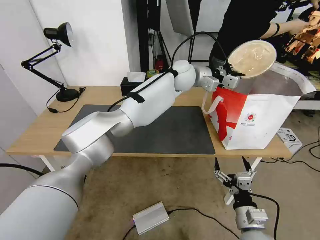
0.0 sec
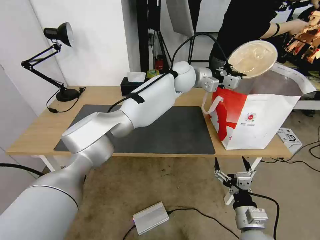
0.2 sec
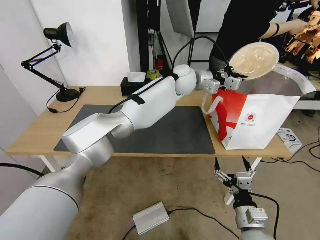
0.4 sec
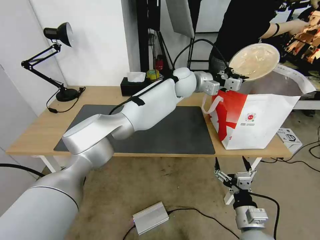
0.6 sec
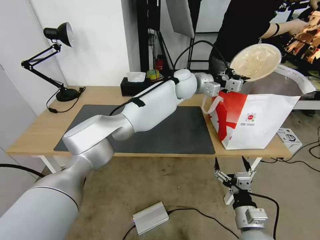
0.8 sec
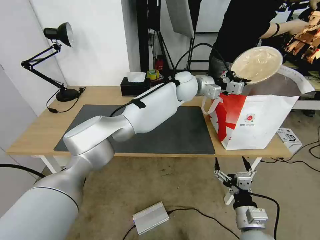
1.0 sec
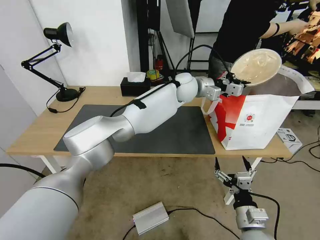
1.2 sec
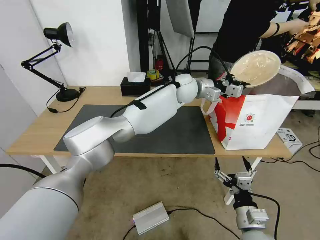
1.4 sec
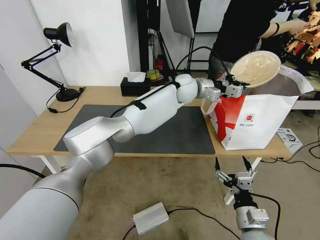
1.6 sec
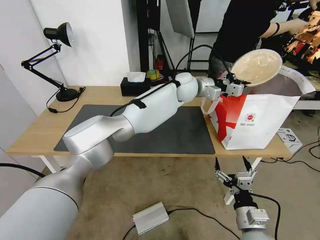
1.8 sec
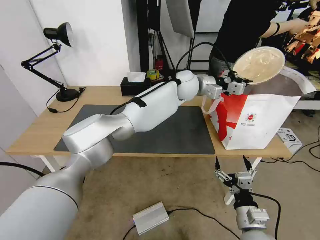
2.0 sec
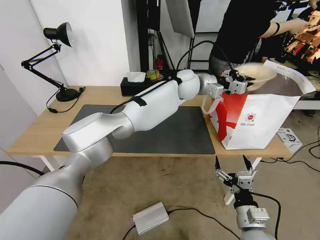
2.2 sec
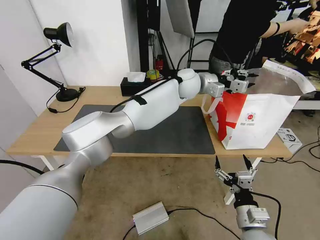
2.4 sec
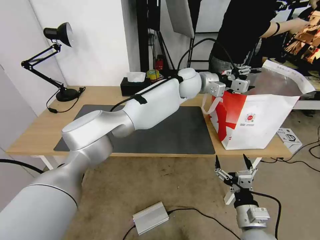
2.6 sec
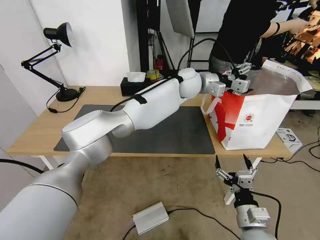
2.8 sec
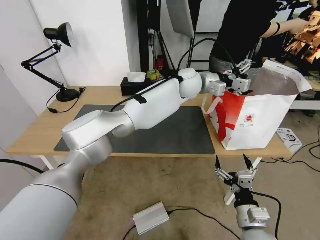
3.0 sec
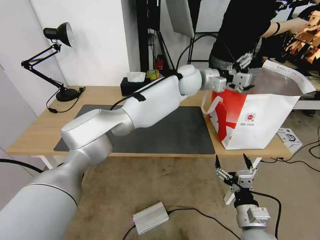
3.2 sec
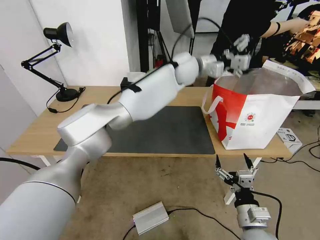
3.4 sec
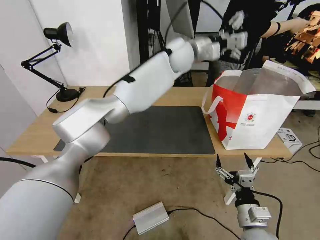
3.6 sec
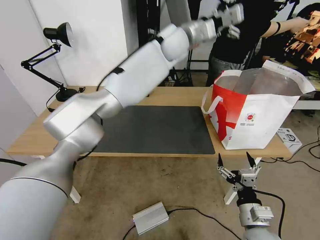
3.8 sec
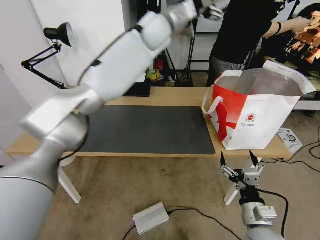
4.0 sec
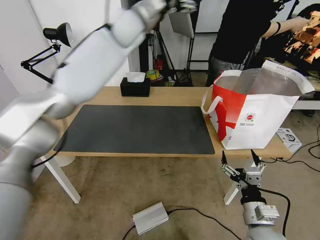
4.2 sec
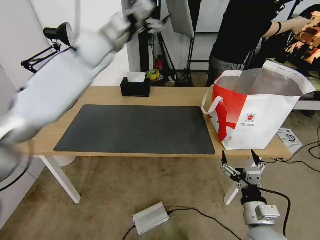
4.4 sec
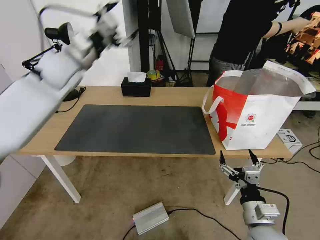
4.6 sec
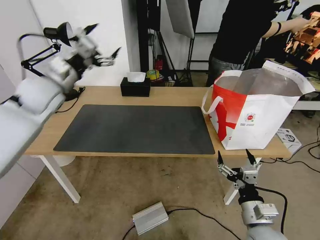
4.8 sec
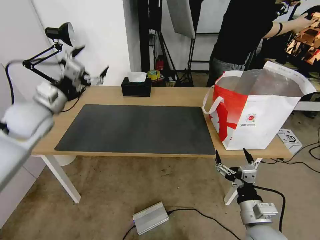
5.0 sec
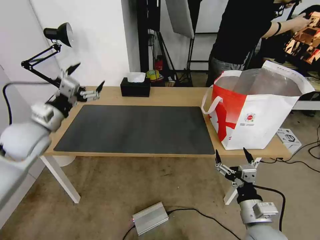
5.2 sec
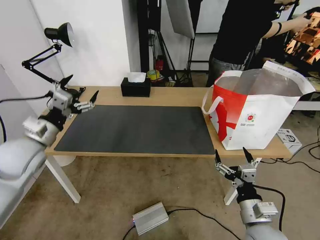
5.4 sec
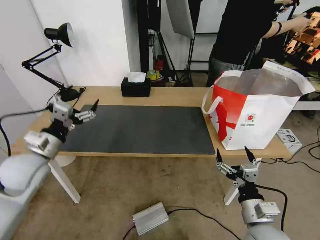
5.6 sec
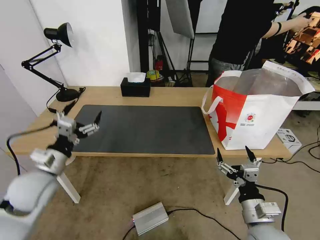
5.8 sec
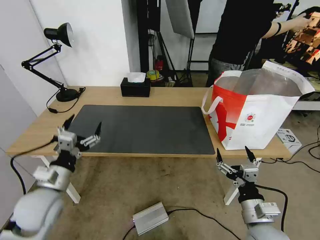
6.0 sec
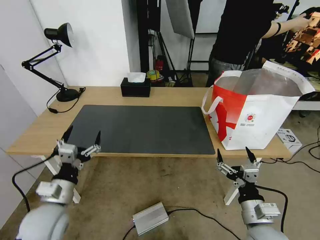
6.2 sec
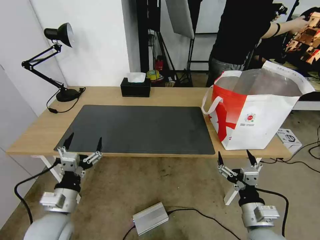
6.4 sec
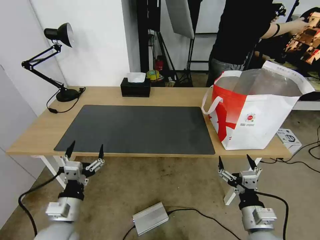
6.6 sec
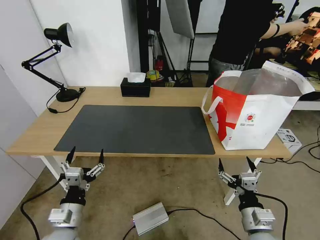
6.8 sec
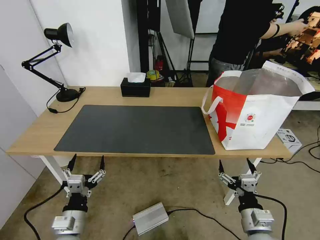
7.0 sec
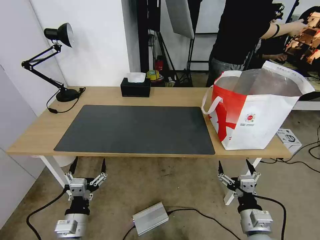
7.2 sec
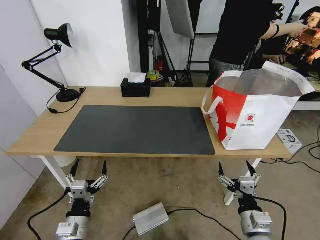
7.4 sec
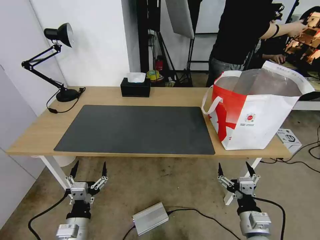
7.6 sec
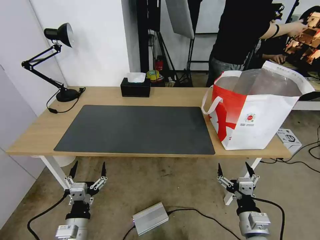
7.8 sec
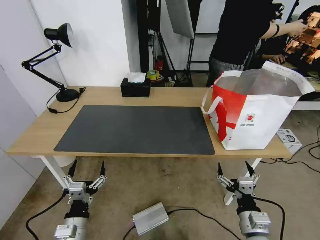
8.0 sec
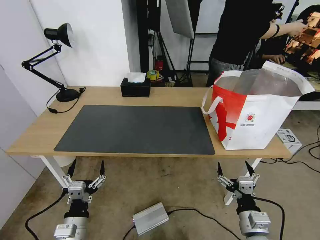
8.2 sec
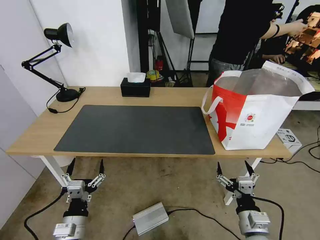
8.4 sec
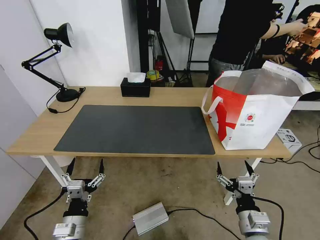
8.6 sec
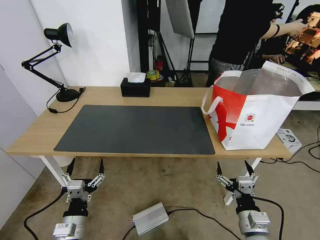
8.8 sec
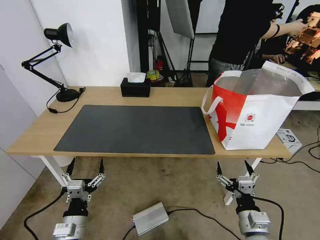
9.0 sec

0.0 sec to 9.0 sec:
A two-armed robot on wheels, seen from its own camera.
Task of the whole recording: Pick up the trash from the table and place it into the takeout bag.
0.0 sec to 1.6 sec: The left gripper changes place by about 5 cm.
1.6 sec to 3.0 sec: The left gripper opens.
3.0 sec to 4.4 sec: The left gripper heads to the left and upward, covering some 30 cm.
4.4 sec to 6.0 sec: The left gripper shifts roughly 40 cm backward and downward.
6.0 sec to 7.6 sec: The left gripper travels downward, backward and to the right by some 15 cm.
7.6 sec to 9.0 sec: Neither gripper changes place.

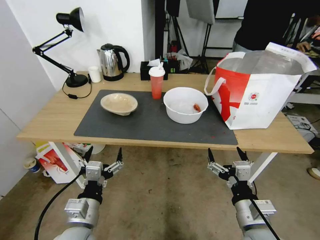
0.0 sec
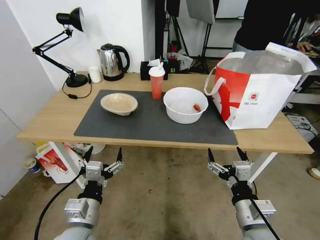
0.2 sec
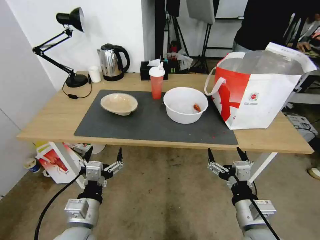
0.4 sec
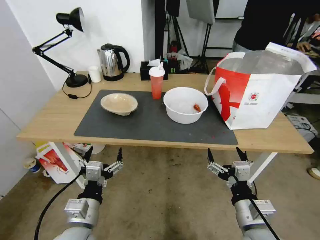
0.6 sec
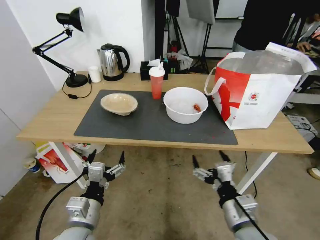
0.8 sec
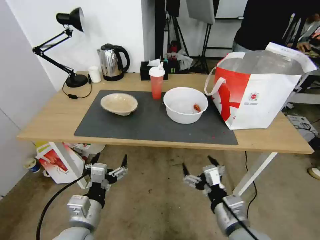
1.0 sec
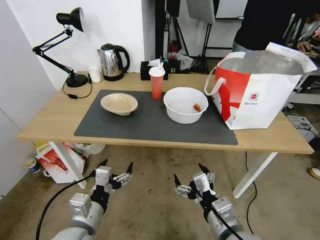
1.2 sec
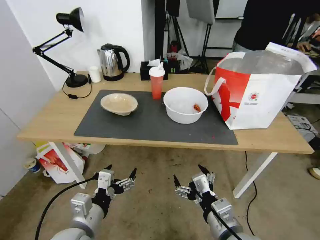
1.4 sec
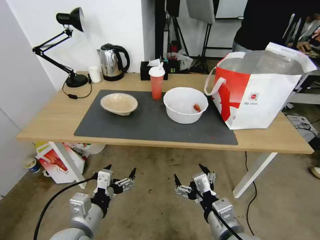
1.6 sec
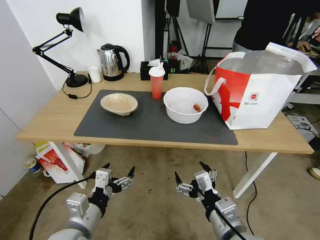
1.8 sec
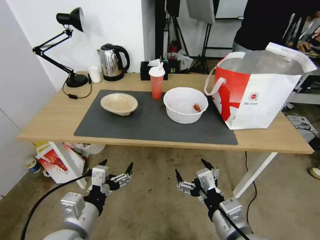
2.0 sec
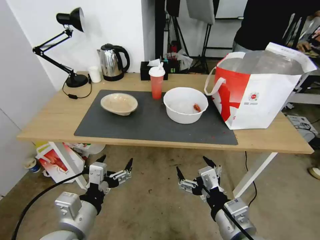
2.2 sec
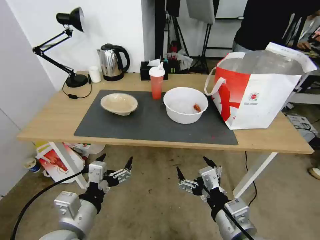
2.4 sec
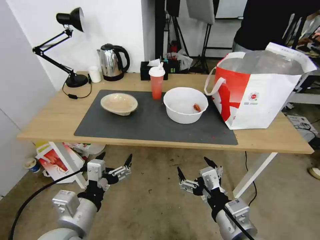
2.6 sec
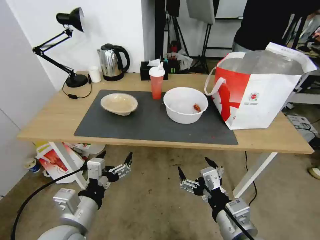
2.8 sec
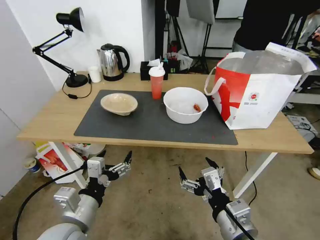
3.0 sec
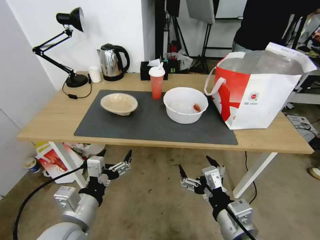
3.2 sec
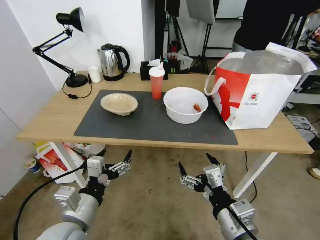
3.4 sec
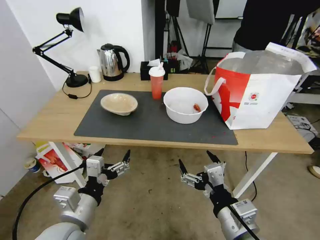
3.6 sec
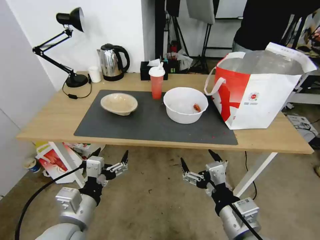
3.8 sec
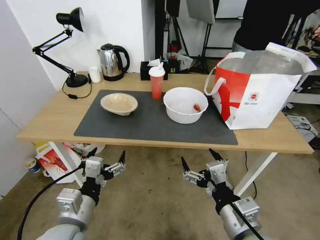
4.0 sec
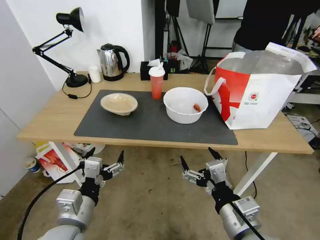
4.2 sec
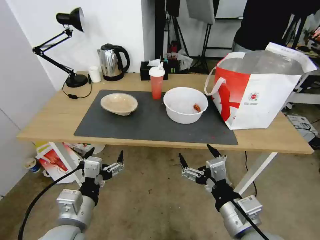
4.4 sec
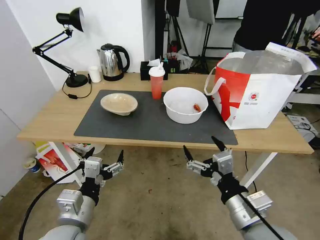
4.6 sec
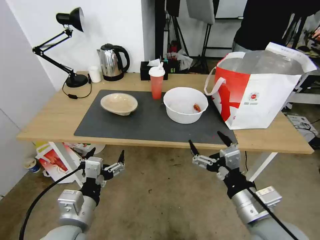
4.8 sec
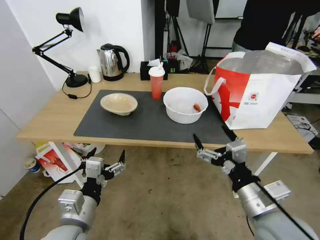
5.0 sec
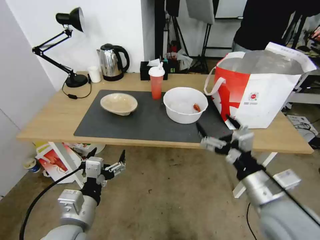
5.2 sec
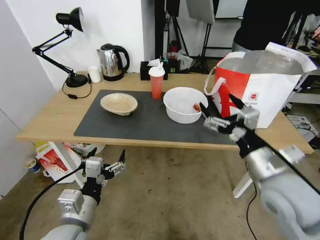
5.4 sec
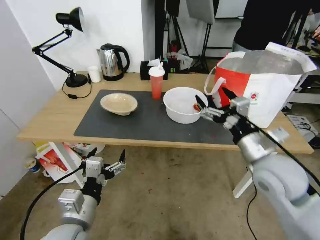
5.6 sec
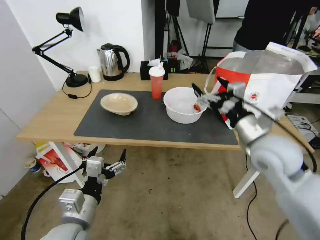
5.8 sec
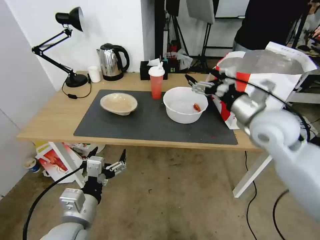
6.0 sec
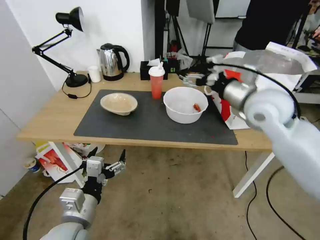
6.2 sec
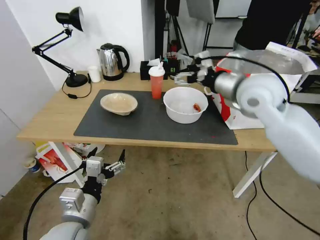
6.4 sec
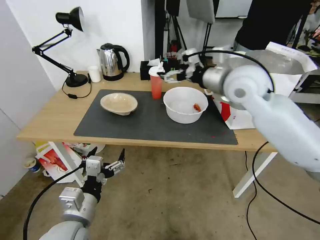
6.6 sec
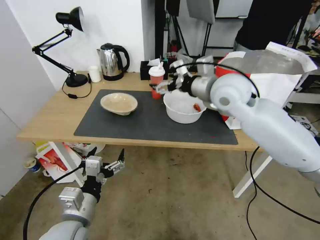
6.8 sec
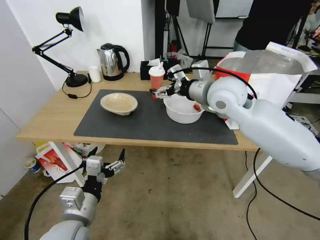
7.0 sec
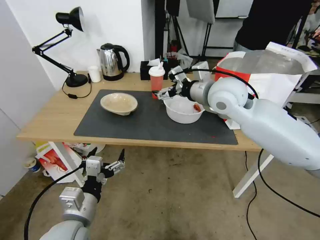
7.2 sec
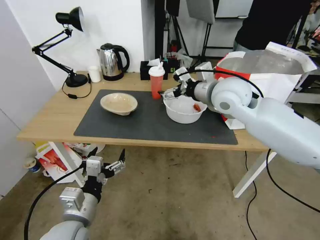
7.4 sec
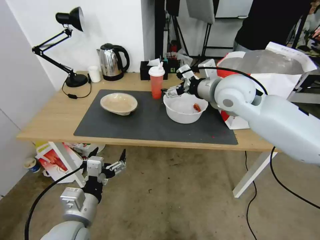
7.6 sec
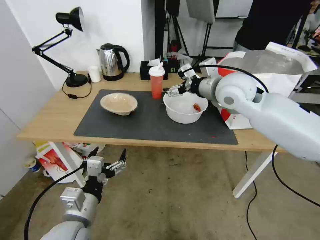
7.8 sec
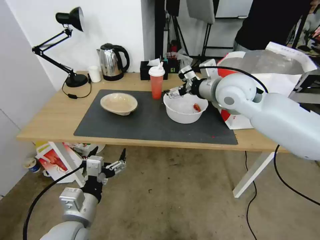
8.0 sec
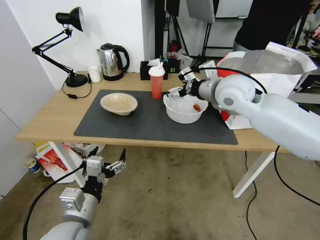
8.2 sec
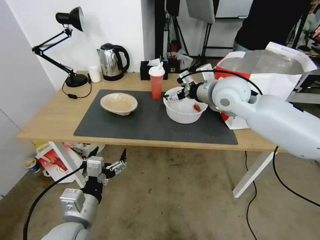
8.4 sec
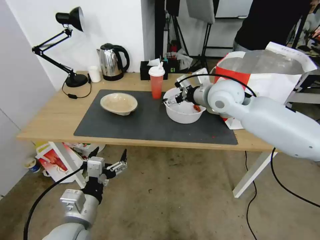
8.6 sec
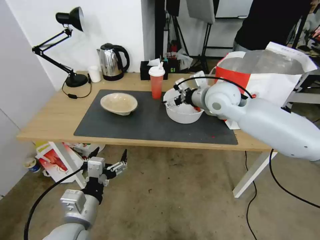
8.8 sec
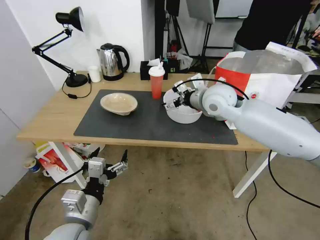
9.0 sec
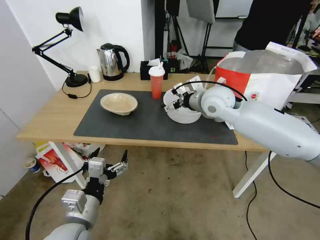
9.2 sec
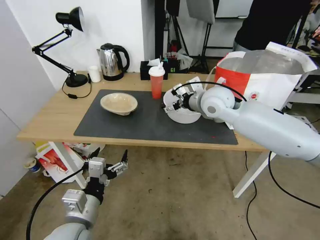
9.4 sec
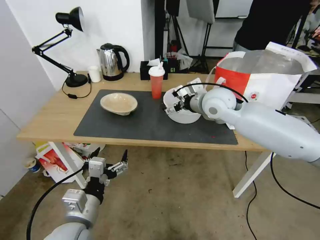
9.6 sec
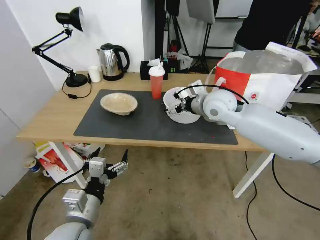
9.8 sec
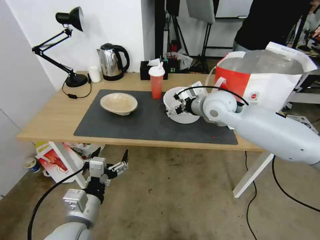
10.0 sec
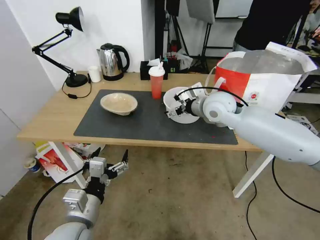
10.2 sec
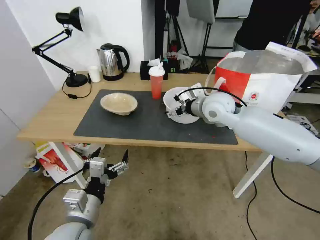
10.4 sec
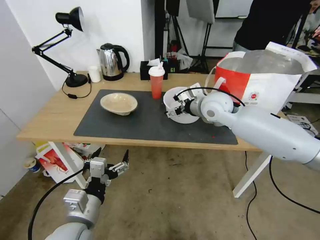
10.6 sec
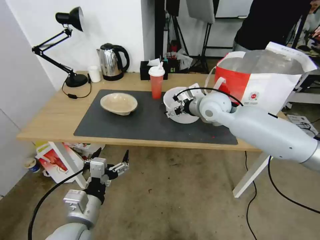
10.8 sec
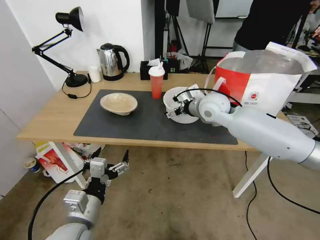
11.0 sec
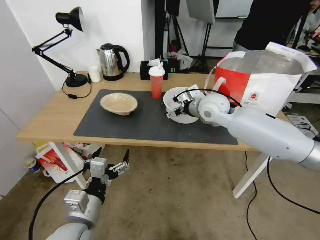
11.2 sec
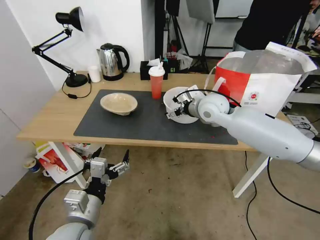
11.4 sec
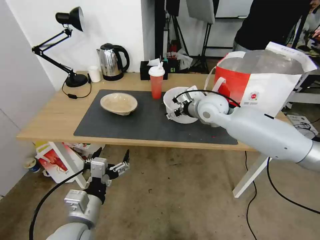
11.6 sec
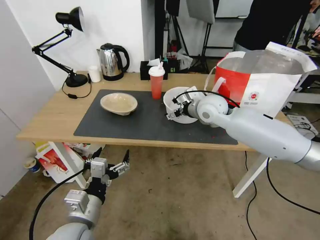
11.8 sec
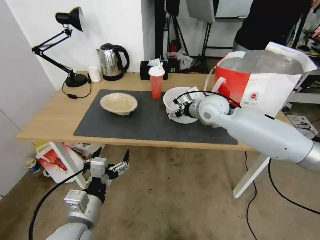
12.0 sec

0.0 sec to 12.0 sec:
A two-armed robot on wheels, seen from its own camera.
Task of the whole recording: Pick up the trash from the table and place it into the takeout bag.
1.6 sec to 4.4 sec: The grippers make only small movements.
4.4 sec to 6.0 sec: The right gripper shifts approximately 25 cm forward and upward.
6.0 sec to 7.6 sec: The right gripper goes roughly 10 cm forward and to the left.
7.6 sec to 9.0 sec: The right gripper changes place by about 5 cm.
9.0 sec to 12.0 sec: The grippers stay close to where they were, moving slightly.

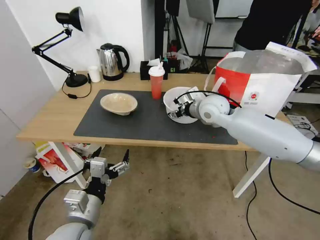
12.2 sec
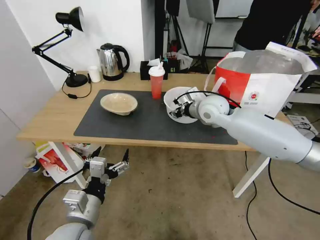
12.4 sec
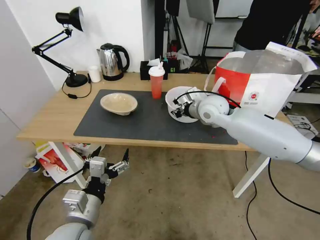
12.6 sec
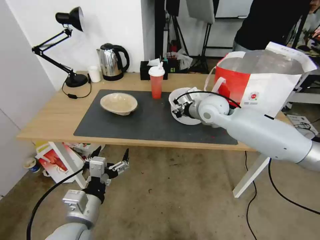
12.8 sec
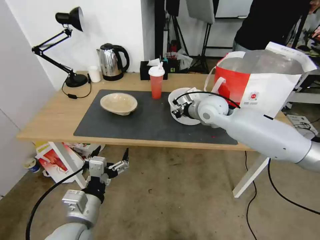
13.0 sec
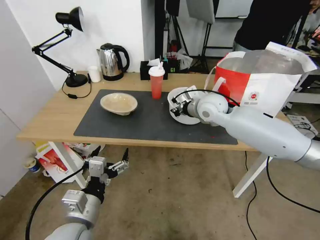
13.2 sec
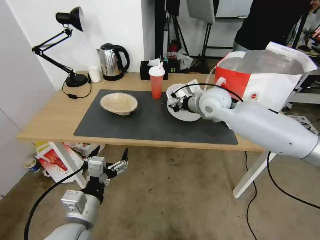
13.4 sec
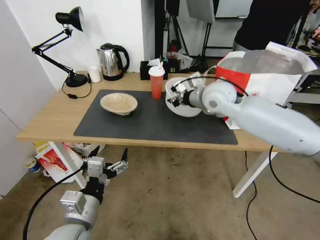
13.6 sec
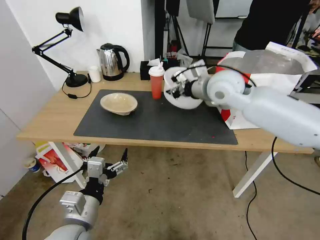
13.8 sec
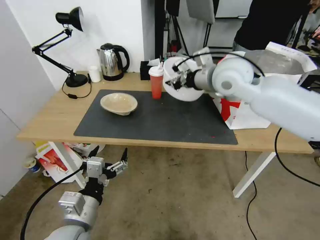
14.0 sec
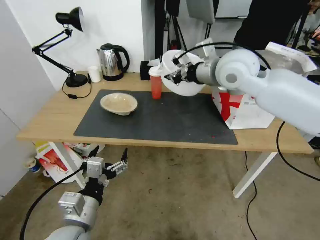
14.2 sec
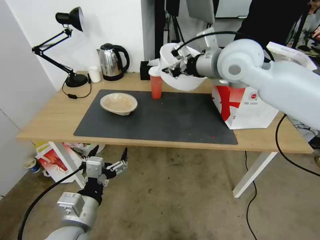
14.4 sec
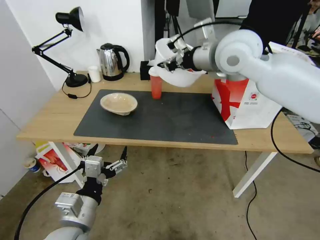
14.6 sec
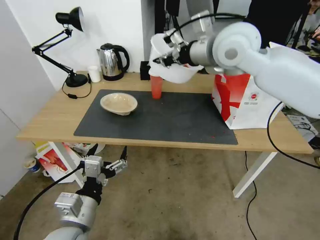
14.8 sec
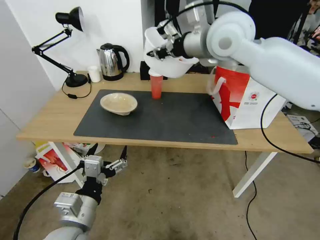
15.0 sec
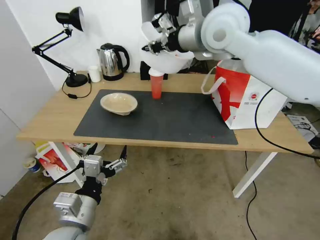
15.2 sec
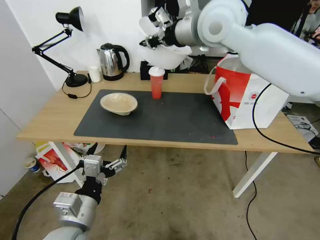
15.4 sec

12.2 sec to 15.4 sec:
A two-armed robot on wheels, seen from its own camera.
Task of the whole recording: Pick up the trash from the table and place it into the takeout bag.
12.2 sec to 13.8 sec: The right gripper travels upward by about 10 cm, and closes up.
13.8 sec to 15.4 sec: The right gripper goes approximately 15 cm upward.
